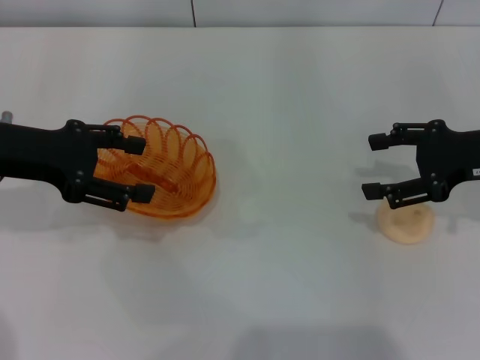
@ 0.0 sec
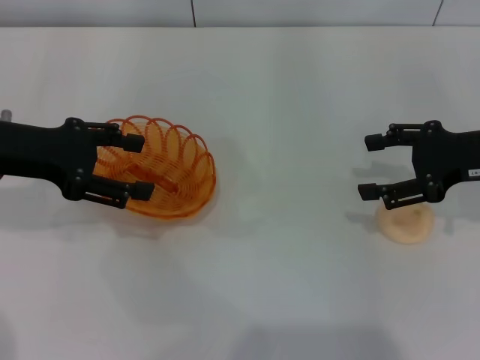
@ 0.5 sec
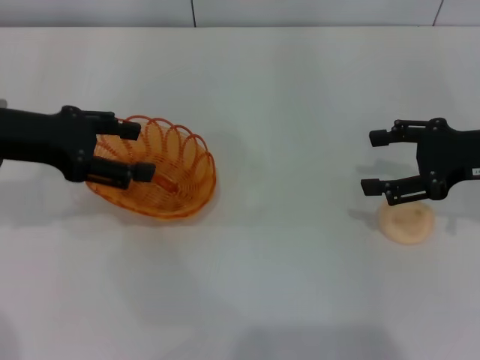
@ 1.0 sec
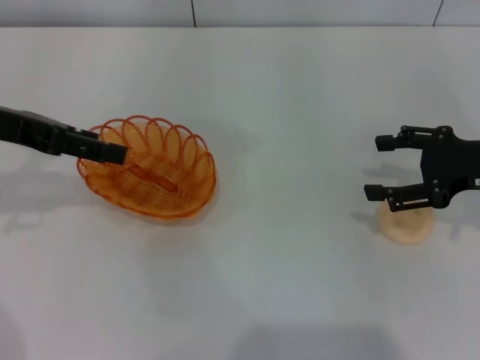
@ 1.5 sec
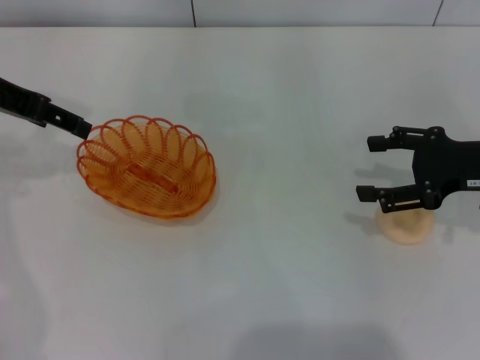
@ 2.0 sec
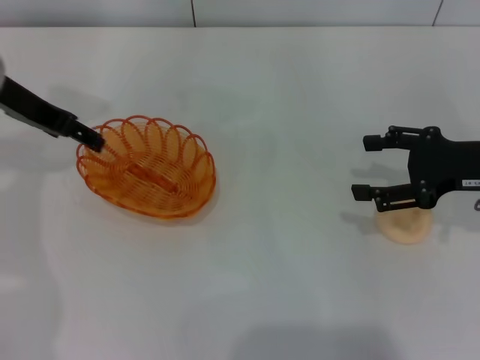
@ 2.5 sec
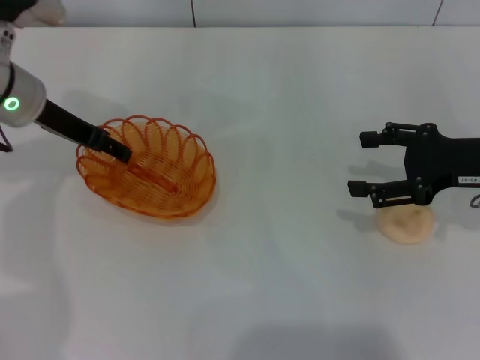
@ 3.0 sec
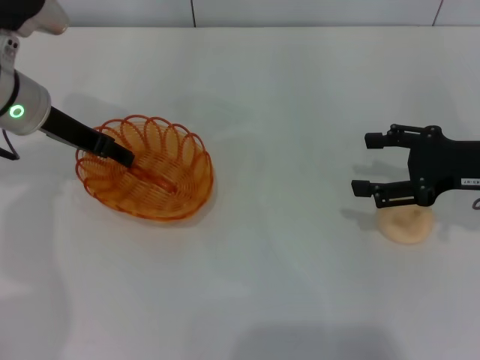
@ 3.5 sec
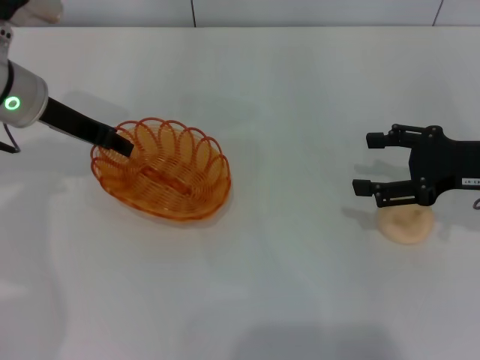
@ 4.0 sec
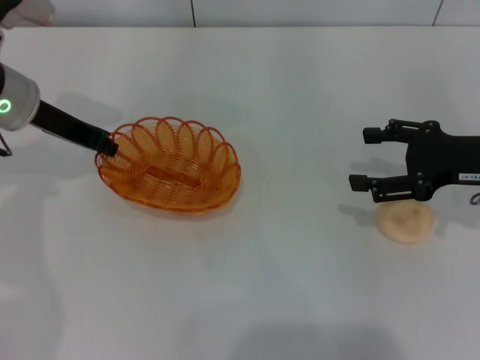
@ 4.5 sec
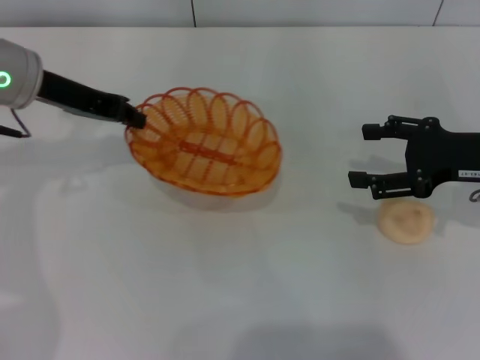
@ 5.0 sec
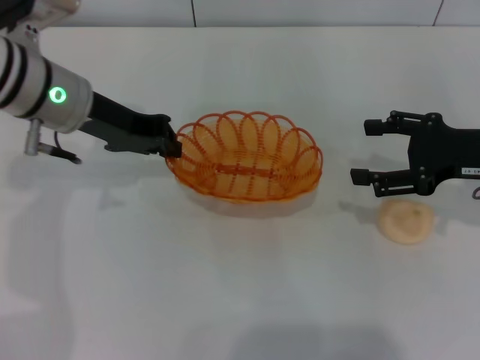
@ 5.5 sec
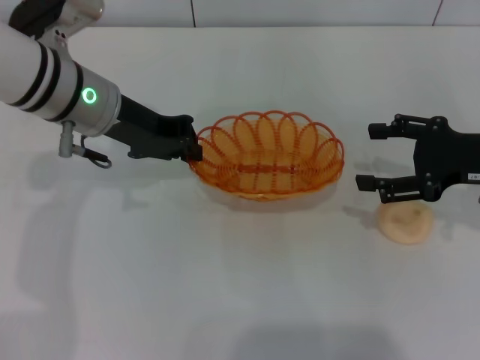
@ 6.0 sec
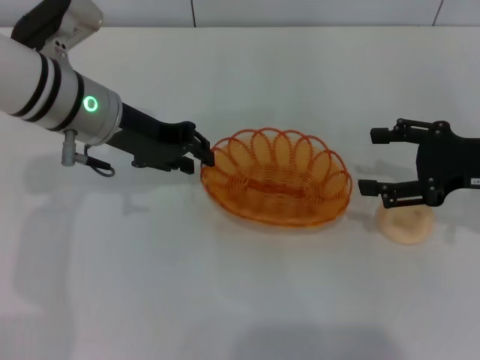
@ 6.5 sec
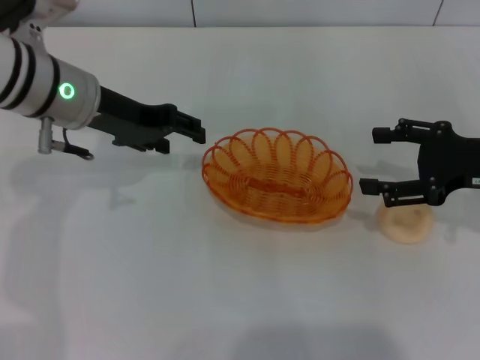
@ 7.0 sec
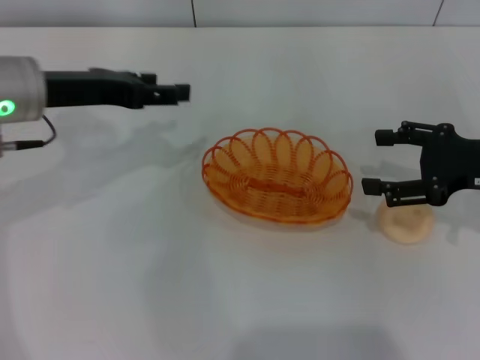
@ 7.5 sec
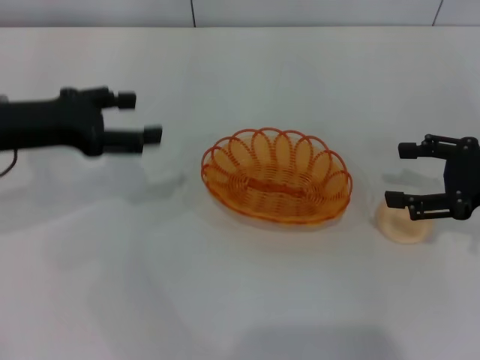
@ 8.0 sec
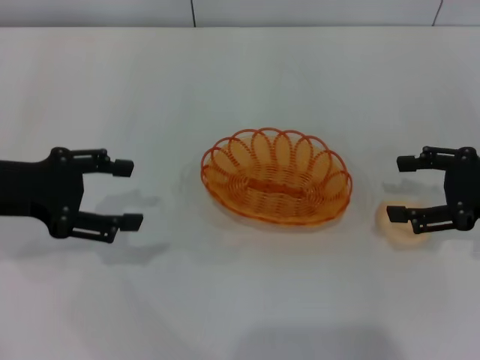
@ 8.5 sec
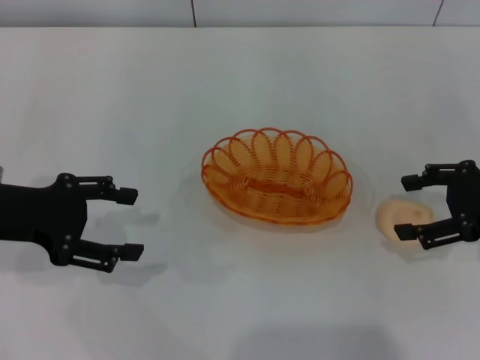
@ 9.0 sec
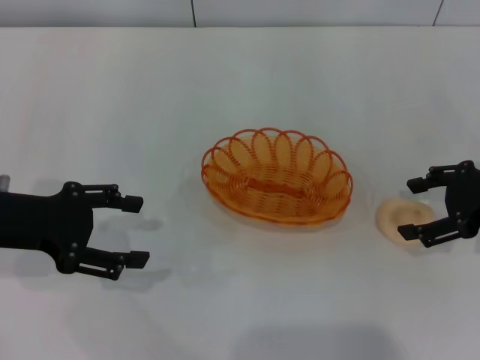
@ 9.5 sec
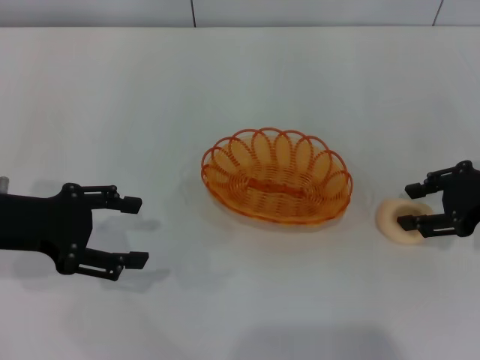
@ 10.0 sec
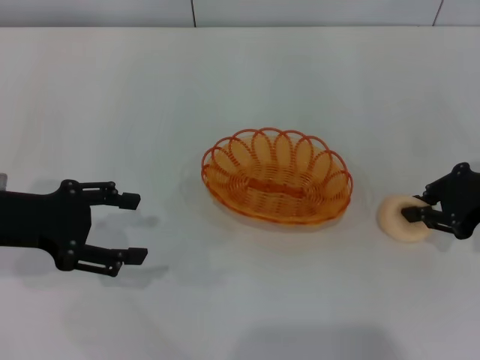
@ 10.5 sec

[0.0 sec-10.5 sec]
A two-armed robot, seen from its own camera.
Step, 0.0 sec to 5.0 sec: Pick up the basket with the left gripper.
Step, 5.5 sec to 7.0 sec: Place the basket in the center of view with the left gripper.
0.0 sec to 2.0 sec: The left gripper shifts roughly 10 cm upward and forward.
2.0 sec to 4.0 sec: The left gripper moves downward, some 10 cm.
4.0 sec to 6.5 sec: The left gripper goes about 5 cm to the right, and closes up.
6.5 sec to 8.5 sec: The left gripper goes approximately 15 cm to the left and backward, and opens its fingers.
8.5 sec to 10.5 sec: The right gripper closes.

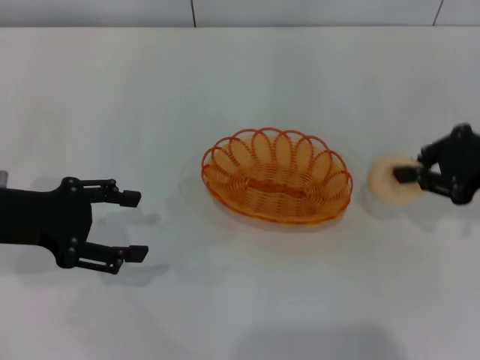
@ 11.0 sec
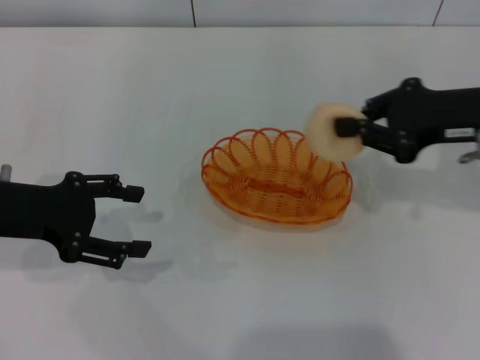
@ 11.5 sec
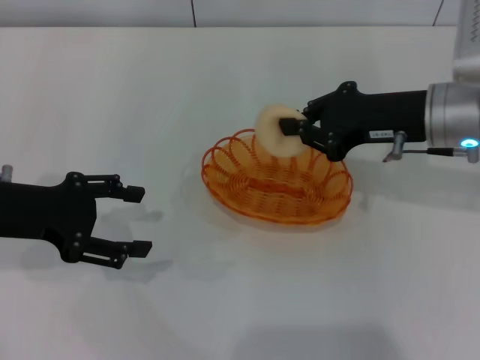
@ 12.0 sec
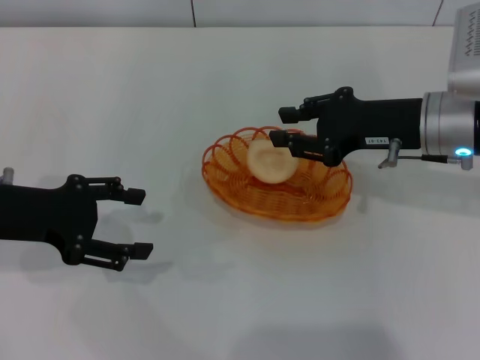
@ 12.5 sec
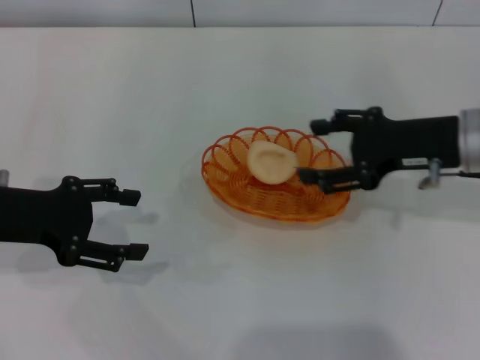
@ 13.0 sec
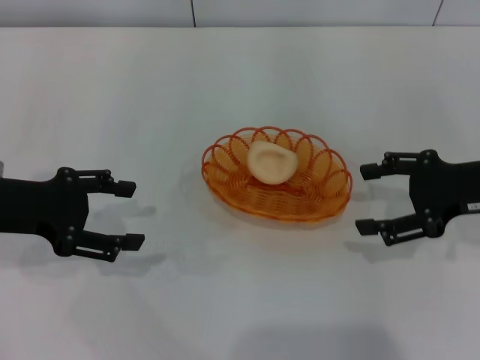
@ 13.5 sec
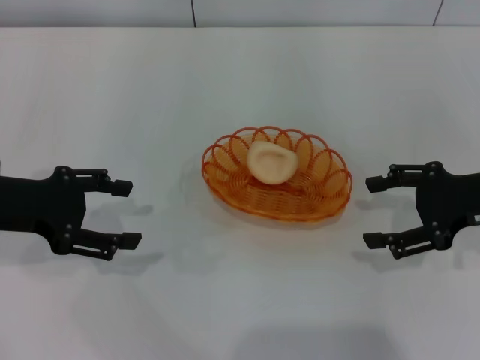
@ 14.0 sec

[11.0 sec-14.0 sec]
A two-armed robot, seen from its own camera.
Step, 11.5 sec to 13.0 sec: Place the egg yolk pastry into the basket with the right gripper.
11.0 sec to 12.5 sec: The right gripper travels to the left by about 10 cm.
12.5 sec to 14.0 sec: The right gripper moves to the right, roughly 10 cm, and opens its fingers.

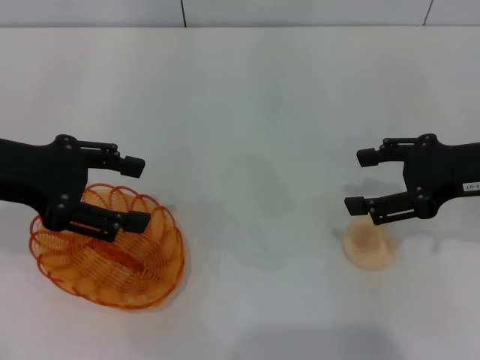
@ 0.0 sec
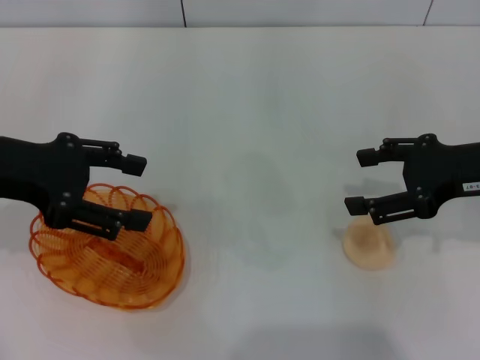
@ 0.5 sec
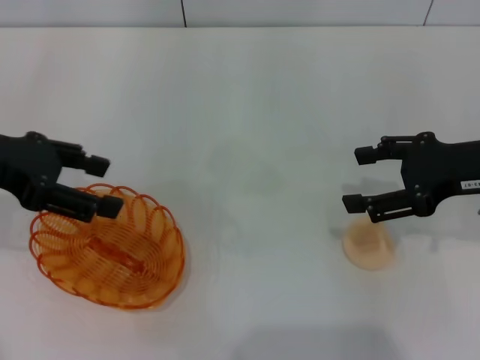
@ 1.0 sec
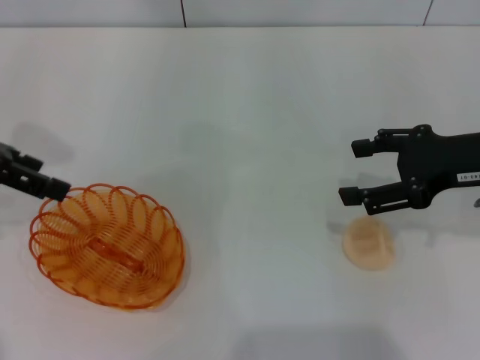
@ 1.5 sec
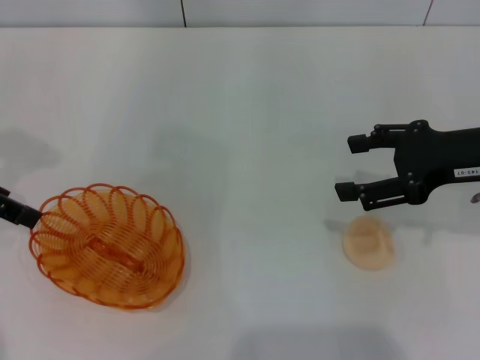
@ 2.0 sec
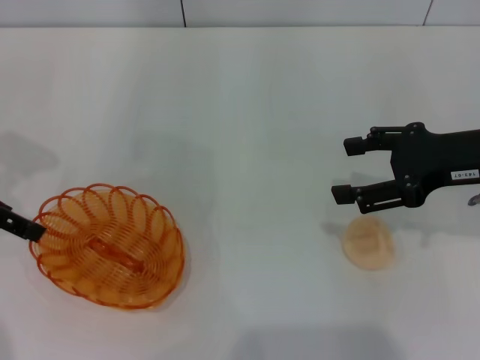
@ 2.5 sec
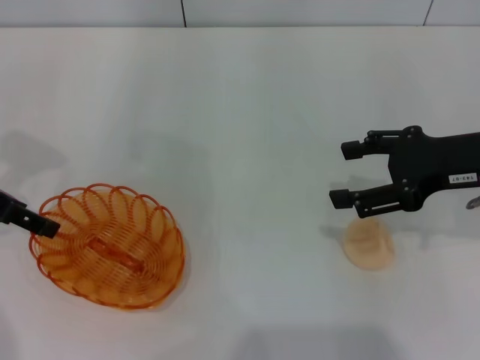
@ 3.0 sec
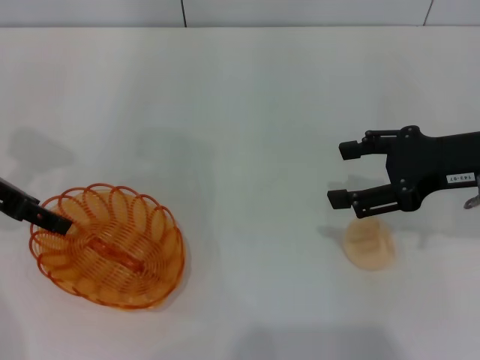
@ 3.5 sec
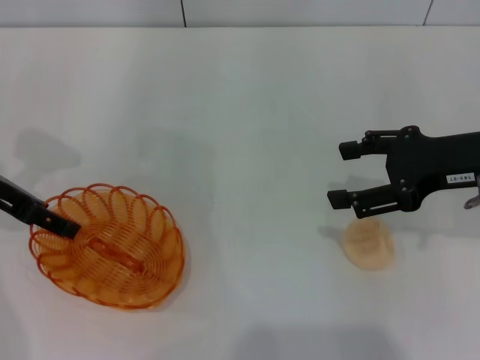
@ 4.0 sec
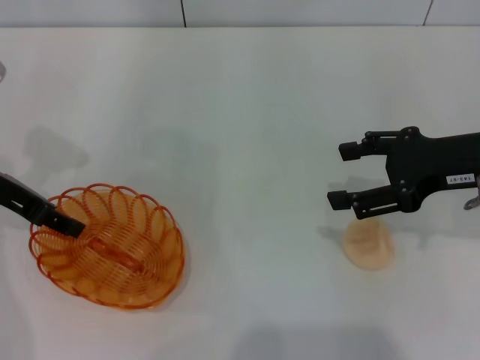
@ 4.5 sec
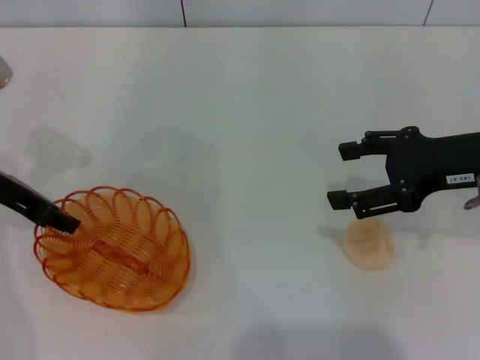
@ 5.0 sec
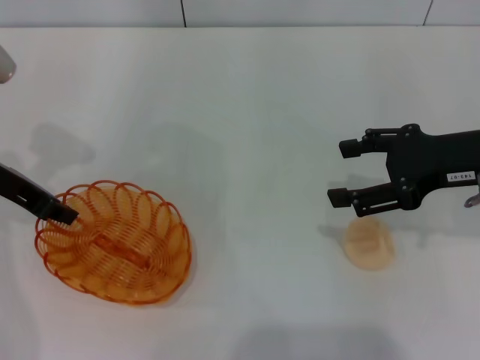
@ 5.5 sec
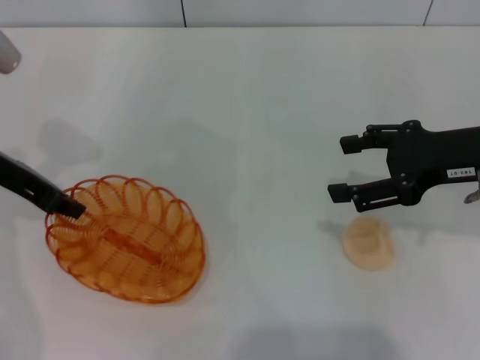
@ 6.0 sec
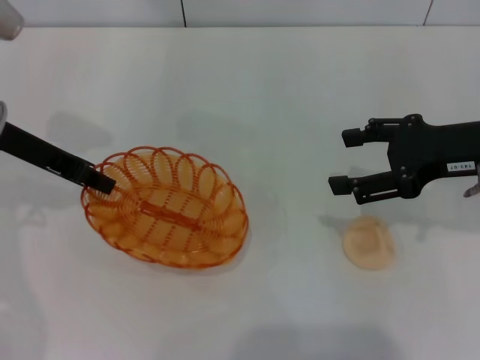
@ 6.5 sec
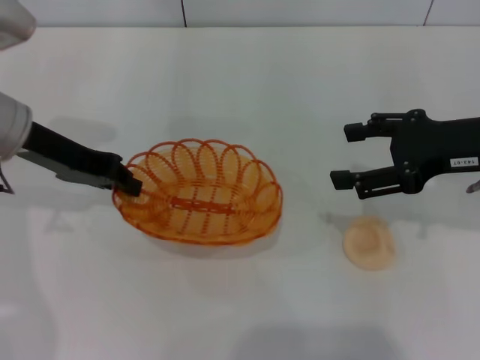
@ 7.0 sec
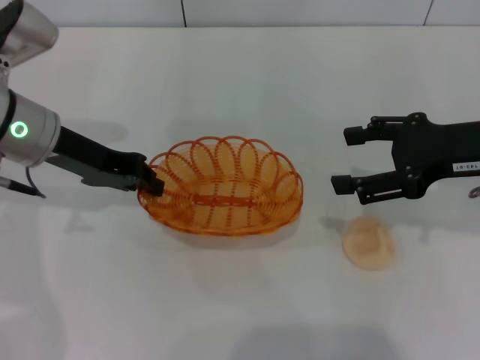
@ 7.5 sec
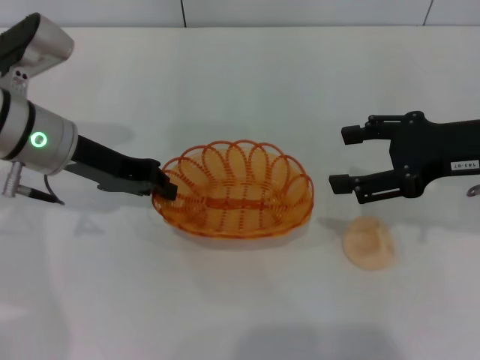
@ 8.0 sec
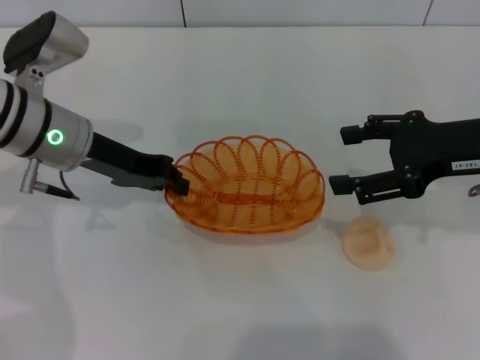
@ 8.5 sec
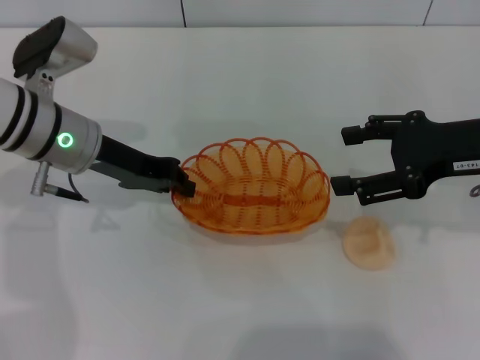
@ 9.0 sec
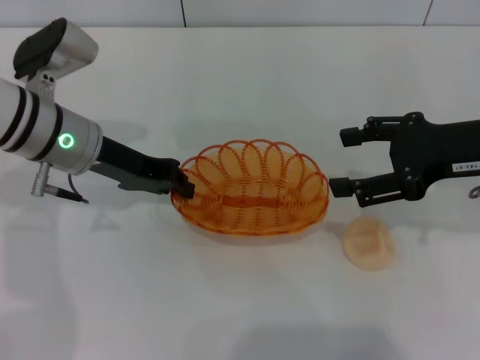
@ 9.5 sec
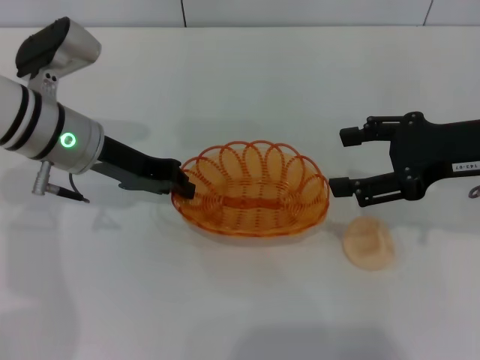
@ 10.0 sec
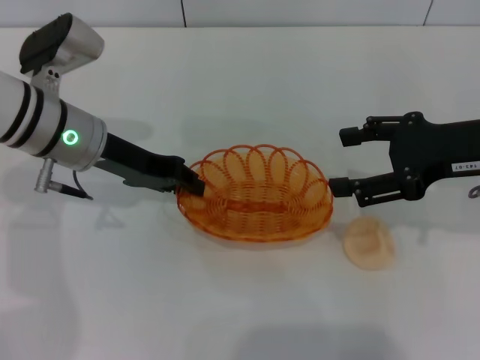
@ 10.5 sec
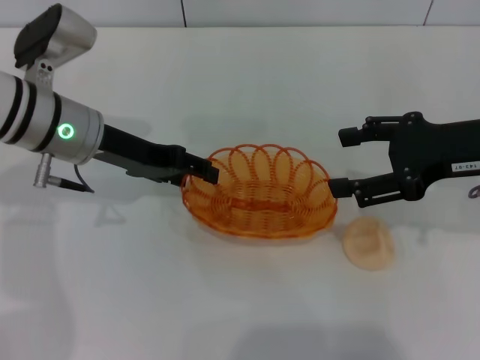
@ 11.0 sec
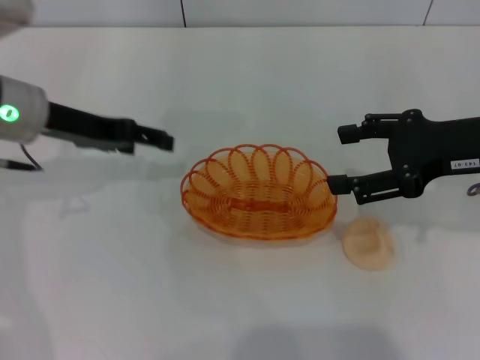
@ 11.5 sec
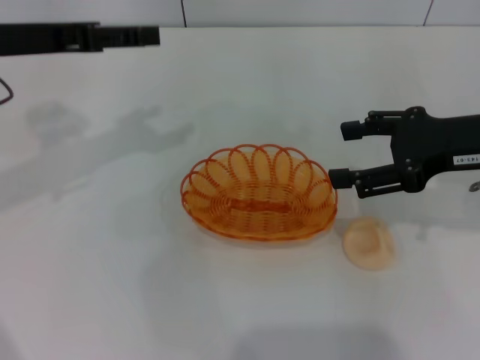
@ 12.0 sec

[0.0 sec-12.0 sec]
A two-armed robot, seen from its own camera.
Step, 0.0 sec to 6.0 sec: Pick up the basket with the left gripper.
Step, 6.5 sec to 11.0 sec: Place the basket in the center of view with the left gripper.
0.0 sec to 2.0 sec: The left gripper moves approximately 5 cm.
2.0 sec to 4.0 sec: The left gripper is displaced downward by approximately 5 cm.
4.0 sec to 6.0 sec: The left gripper closes.
6.0 sec to 8.0 sec: The left gripper travels to the right by roughly 5 cm.
8.0 sec to 10.0 sec: The grippers make only small movements.
10.0 sec to 12.0 sec: The left gripper travels upward and to the left by some 10 cm, and opens its fingers.
